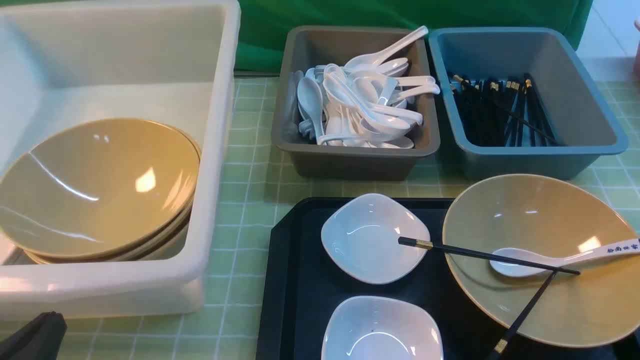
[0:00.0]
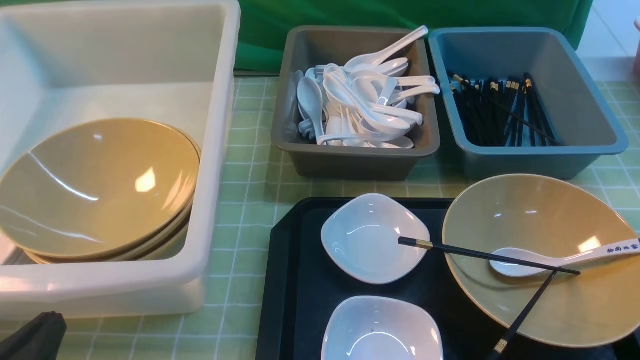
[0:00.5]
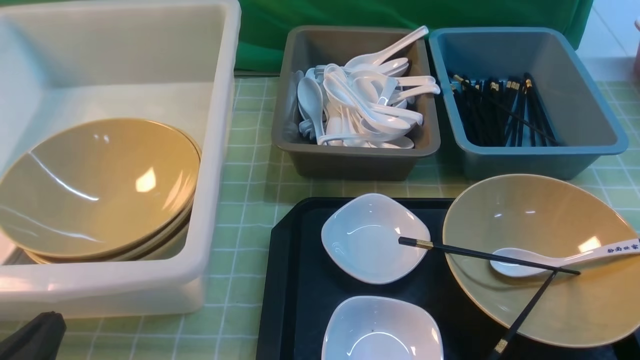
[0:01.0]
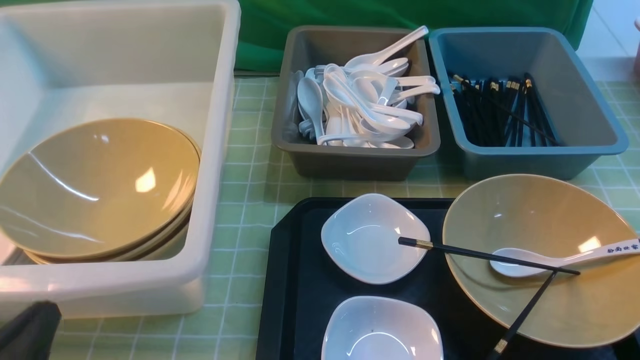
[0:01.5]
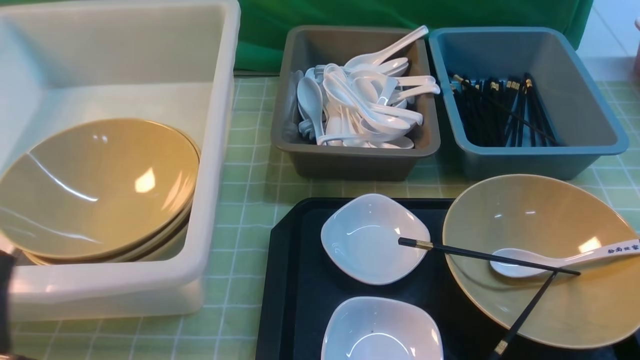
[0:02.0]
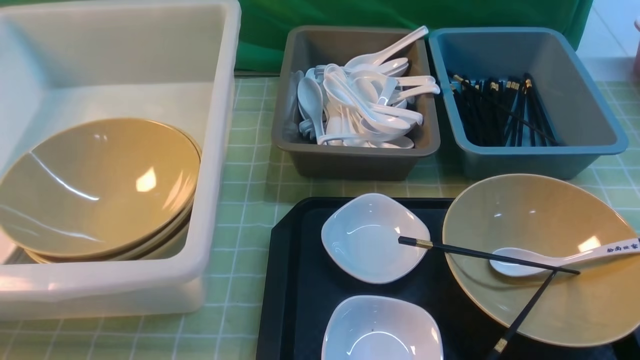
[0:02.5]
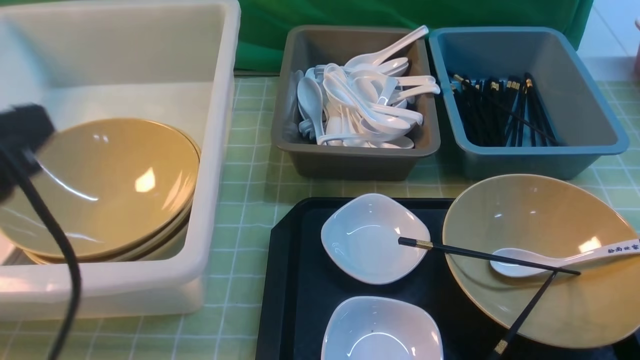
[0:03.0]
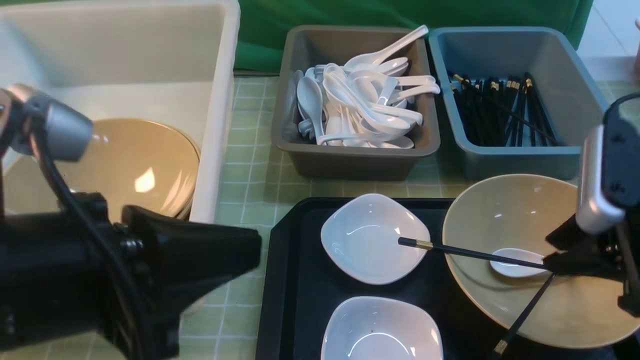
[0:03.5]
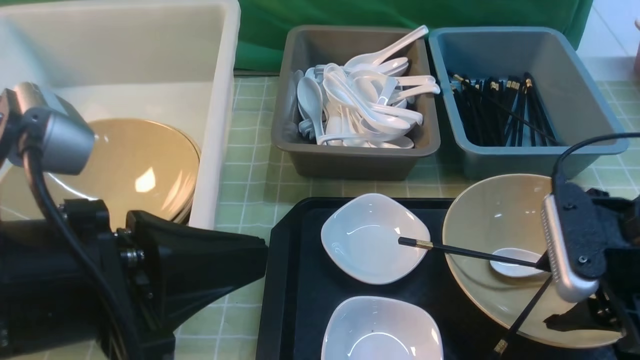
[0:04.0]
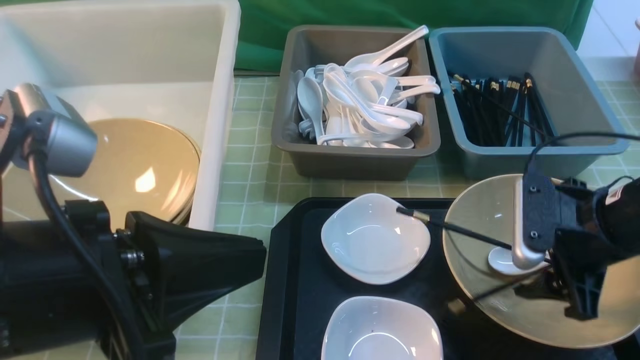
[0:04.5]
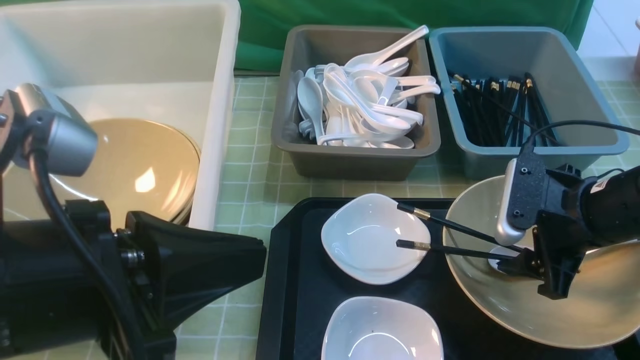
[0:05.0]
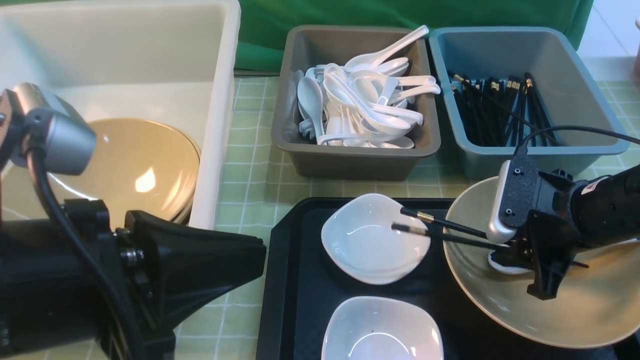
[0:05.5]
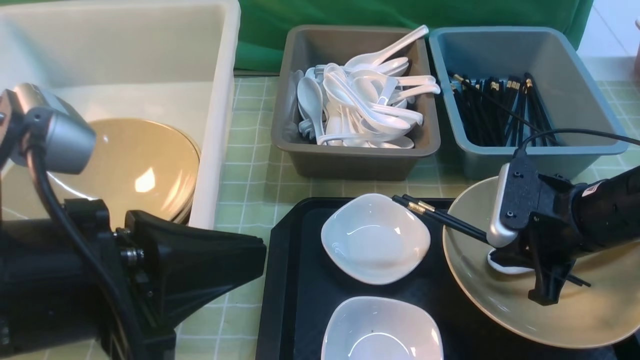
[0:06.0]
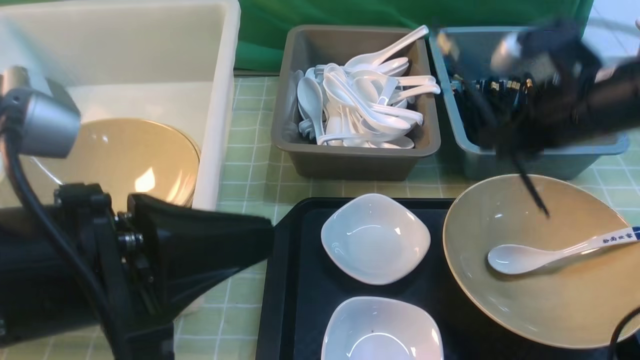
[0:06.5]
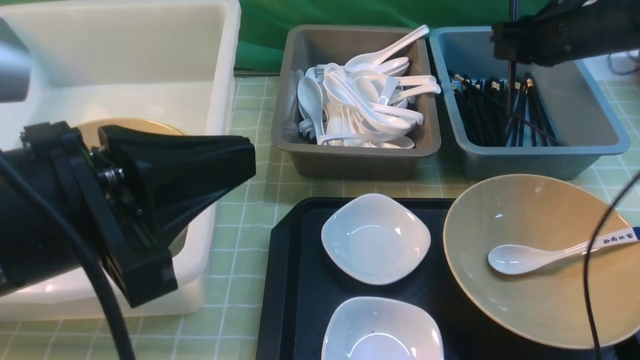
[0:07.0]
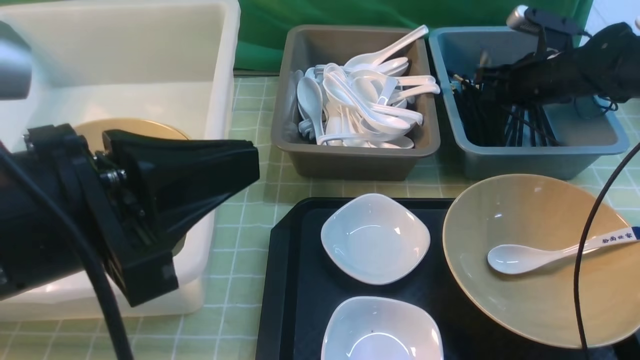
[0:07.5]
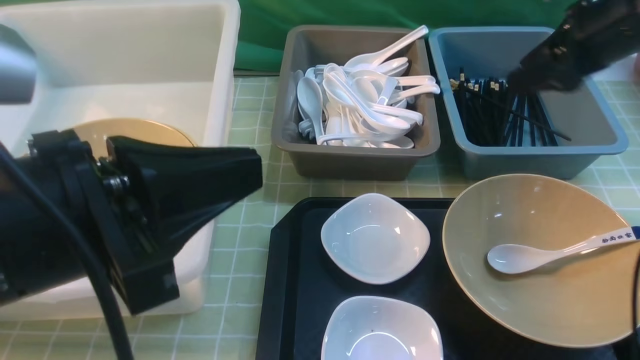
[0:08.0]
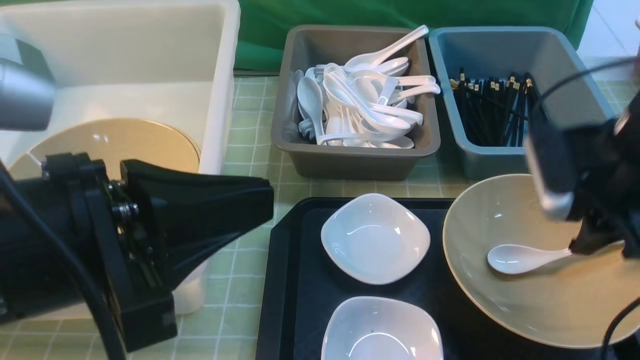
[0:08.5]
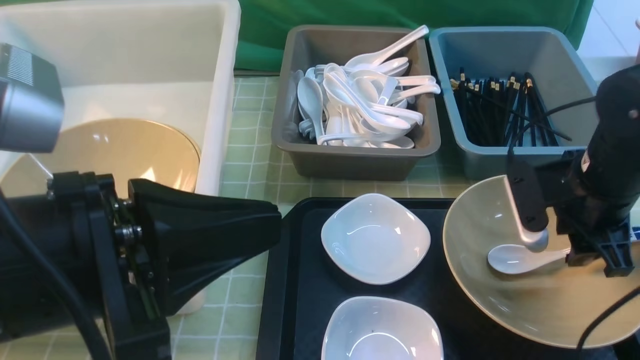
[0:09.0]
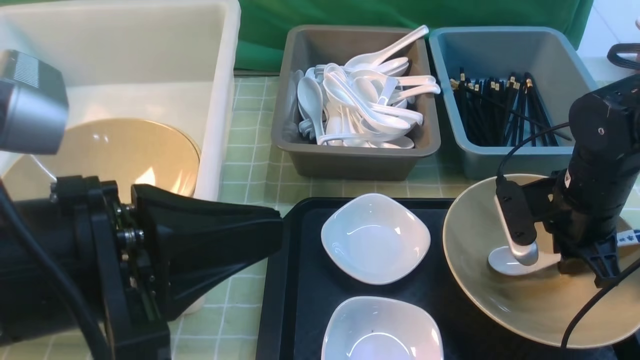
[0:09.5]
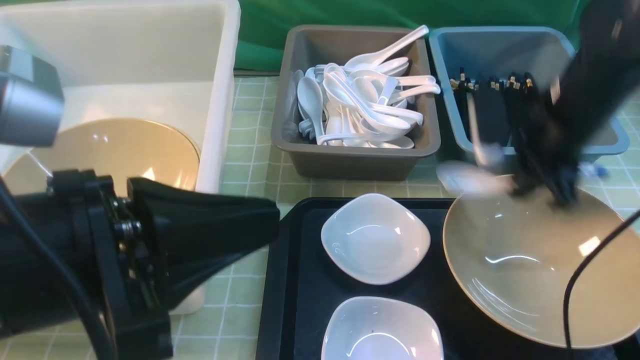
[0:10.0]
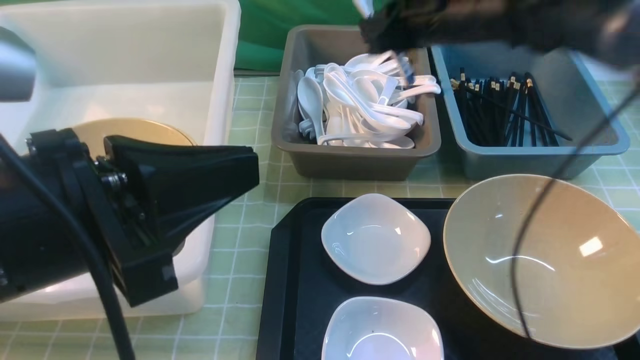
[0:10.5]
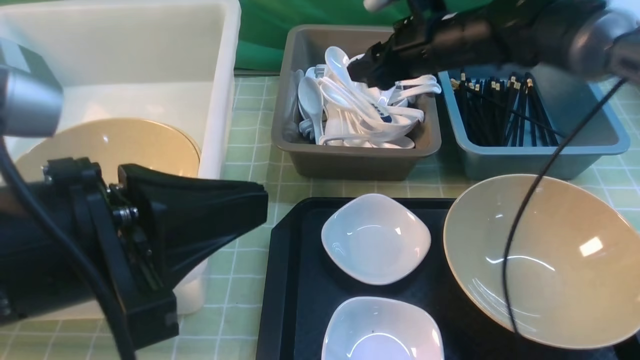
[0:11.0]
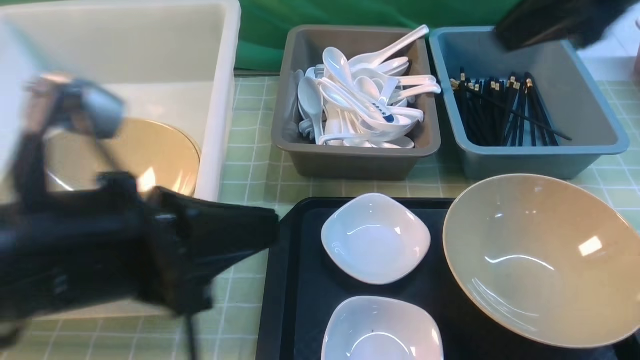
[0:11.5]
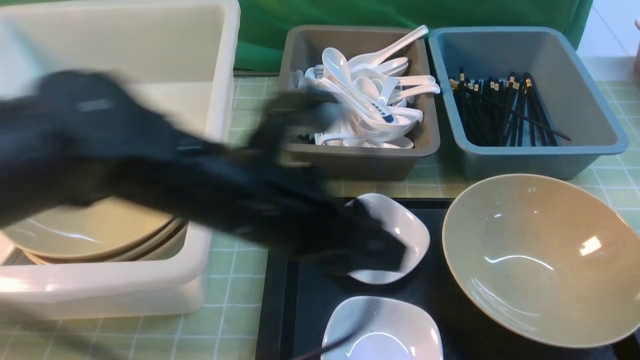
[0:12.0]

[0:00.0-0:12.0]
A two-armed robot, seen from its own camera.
Task of the whole recording: on green table put chopsticks spoon bowls plates into blue grey white boxes.
Step, 0:00.0 to 0:06.0: use the right arm to grab the chopsticks.
Step, 0:06.5 to 0:07.5: use the right arm to put the chopsticks into the small storage box on the right.
Step, 0:08.5 to 0:09.5: use the right arm to grab the soup spoon in the middle.
Step, 0:10.0 to 0:10.5: use the right arm to put the soup spoon into the small storage box in the middle.
0:02.0 to 0:04.0: The right gripper goes approximately 20 cm forward, and opens up; the left gripper heads upward and to the right, covering approximately 15 cm.
0:04.0 to 0:06.0: The right gripper moves forward and downward, some 10 cm, and closes its fingers.
0:06.0 to 0:08.0: The right gripper heads forward and upward, covering approximately 15 cm, and opens its fingers.
0:08.0 to 0:10.0: The right gripper goes about 10 cm to the left, backward and downward, and closes up.
0:10.0 to 0:12.0: The left gripper travels forward, to the right and downward by some 15 cm, while the right gripper goes roughly 30 cm backward and upward, and opens, then closes once more.

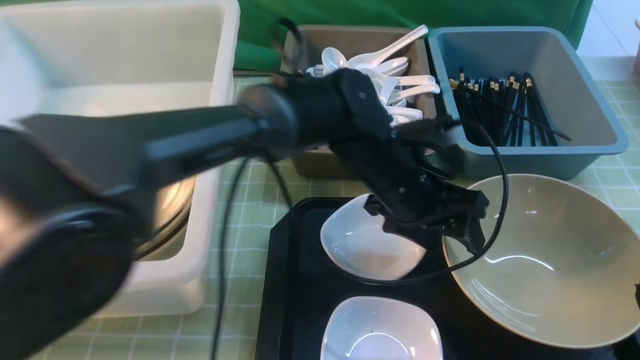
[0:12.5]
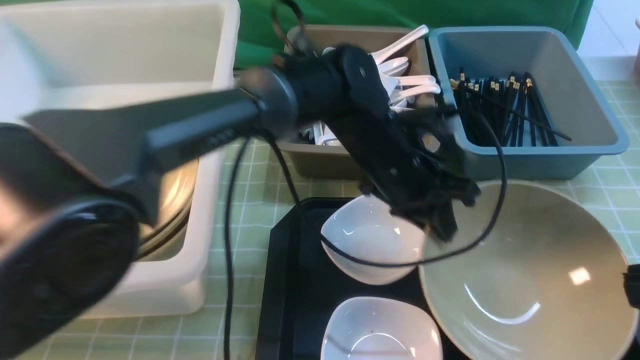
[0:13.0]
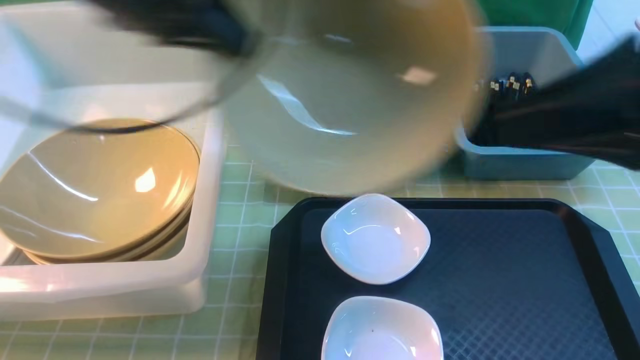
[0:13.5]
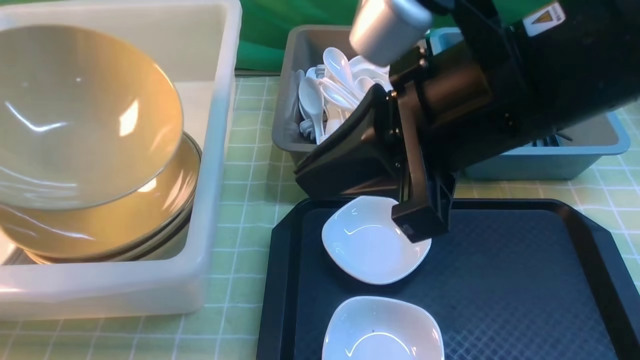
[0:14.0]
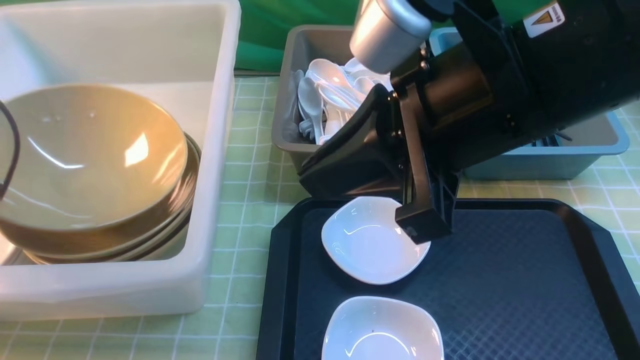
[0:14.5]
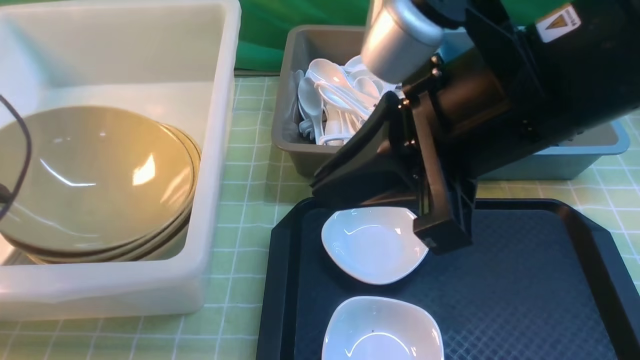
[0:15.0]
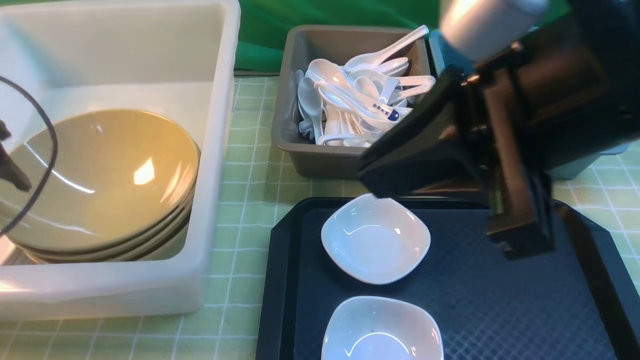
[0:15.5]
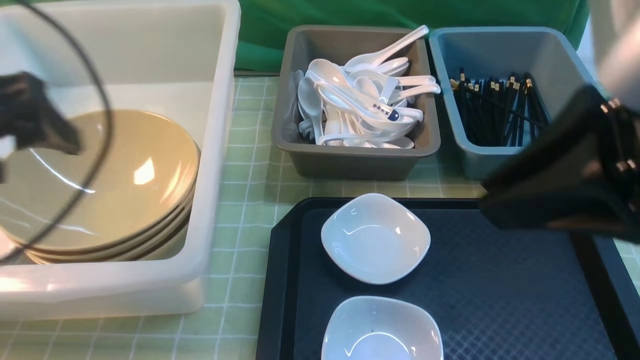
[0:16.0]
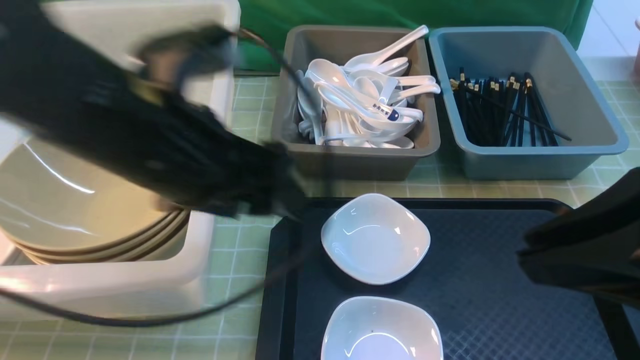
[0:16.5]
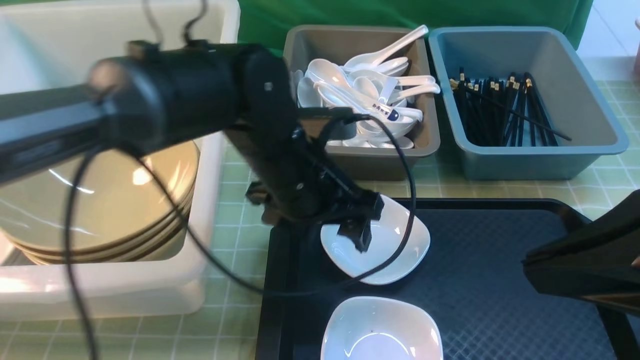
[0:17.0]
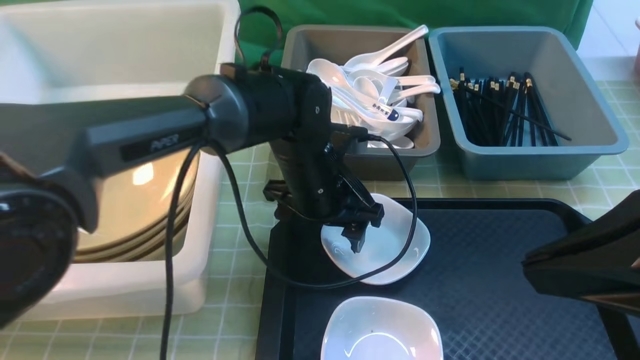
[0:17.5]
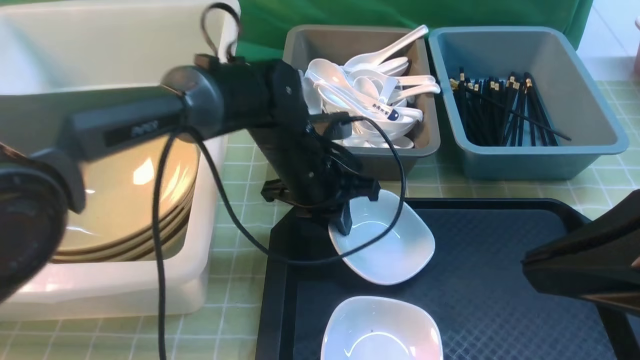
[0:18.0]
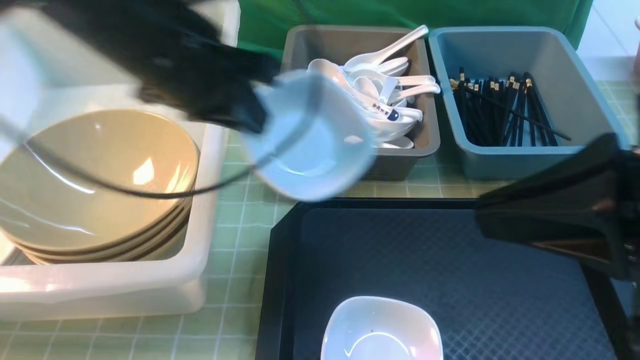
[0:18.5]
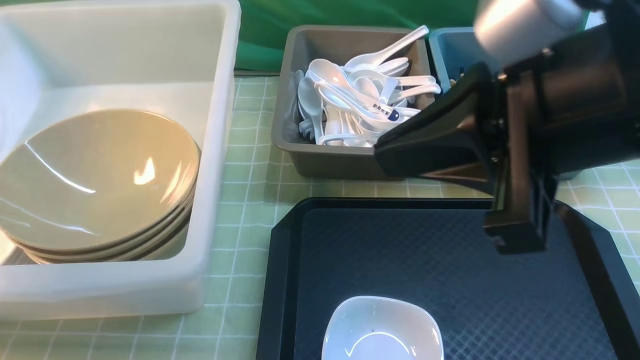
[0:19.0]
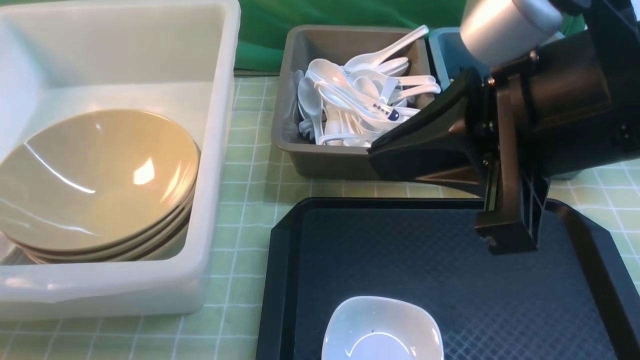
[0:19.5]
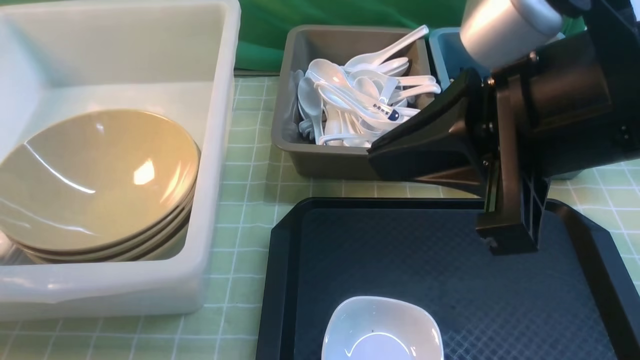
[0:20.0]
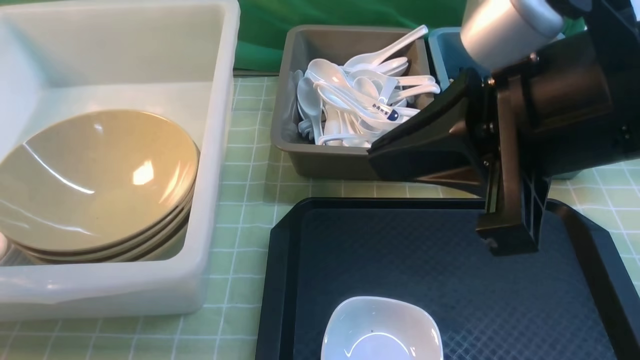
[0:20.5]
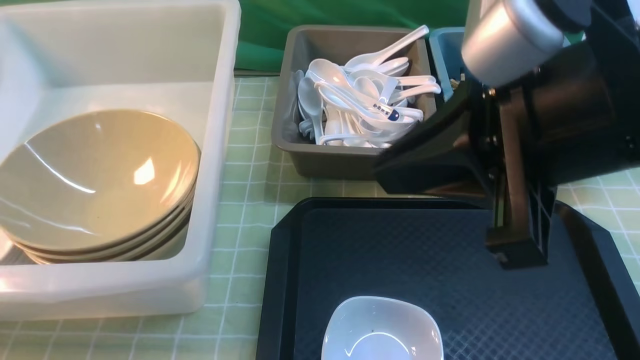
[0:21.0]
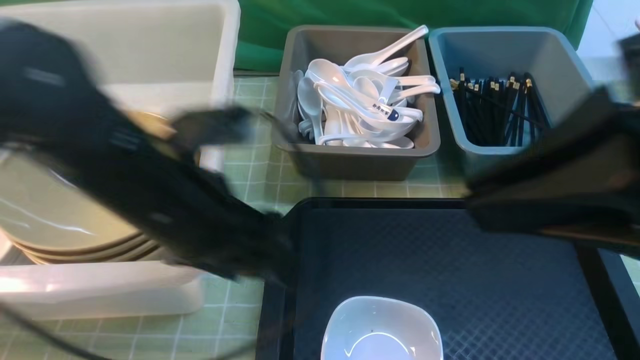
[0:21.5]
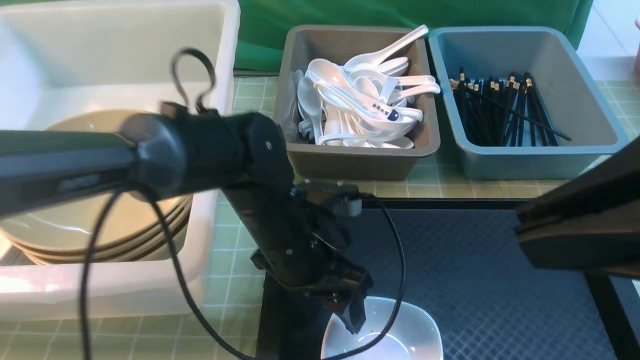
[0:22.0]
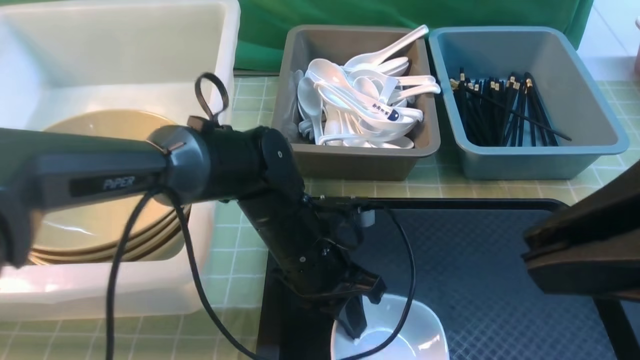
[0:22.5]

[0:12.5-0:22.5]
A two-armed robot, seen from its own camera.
Task of the whole recording: on green table put chopsticks spoon bowls plates into blue grey white boxes.
Step, 0:13.5 to 0:15.5: use the left arm to put the noodle bowl into the large storage box on the left.
Step, 0:16.0 to 0:18.0: use the left arm to grab the plate.
Step, 0:18.5 to 0:21.0: use the left arm to put the plate into the large storage box on the left.
0:12.5 to 0:14.5: The right gripper heads to the left and forward, covering some 20 cm; the left gripper moves to the left, roughly 40 cm, and closes its fingers.
0:14.5 to 0:16.5: The left gripper travels to the right by roughly 25 cm, and opens up. Meanwhile the right gripper goes some 15 cm to the right and backward.
0:16.5 to 0:18.5: The left gripper moves forward, approximately 10 cm, reaches some 15 cm downward, then returns, and closes its fingers.
0:18.5 to 0:20.5: The right gripper heads forward, covering some 5 cm. Meanwhile the left gripper heads to the left, covering about 30 cm, and opens its fingers.
0:20.5 to 0:22.5: The right gripper shifts about 10 cm backward and to the right. Meanwhile the left gripper travels to the right by about 40 cm, and closes.
